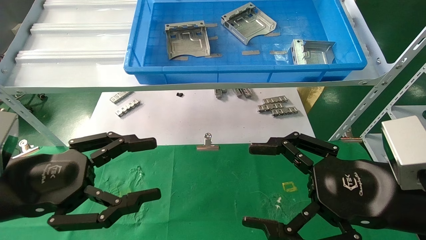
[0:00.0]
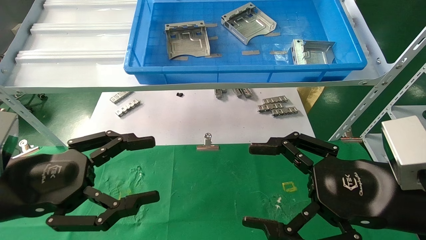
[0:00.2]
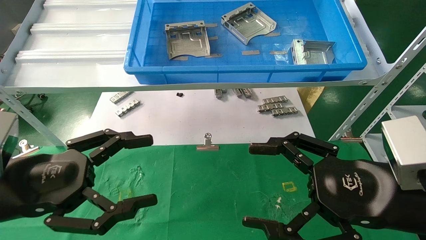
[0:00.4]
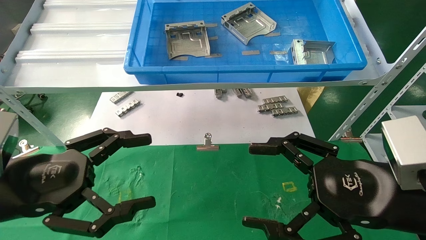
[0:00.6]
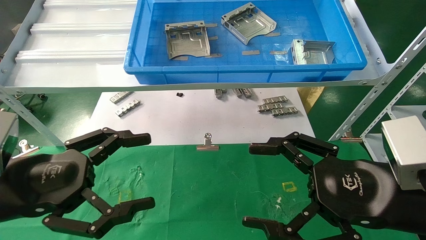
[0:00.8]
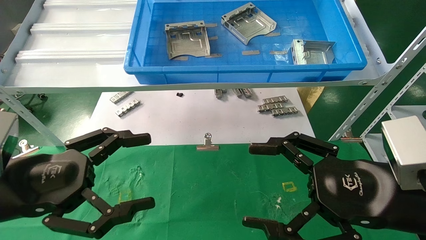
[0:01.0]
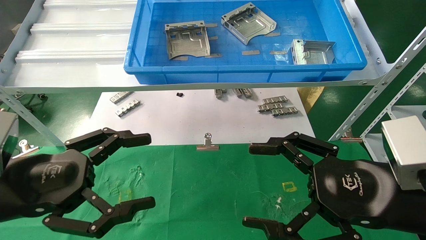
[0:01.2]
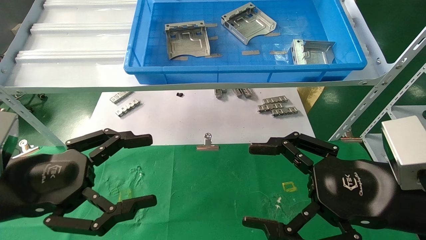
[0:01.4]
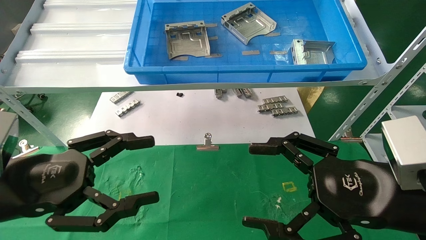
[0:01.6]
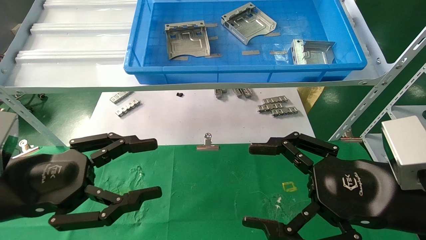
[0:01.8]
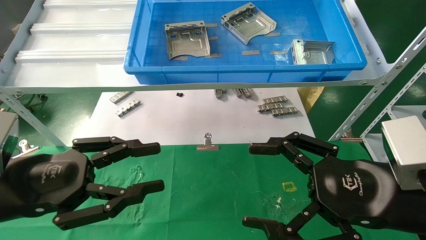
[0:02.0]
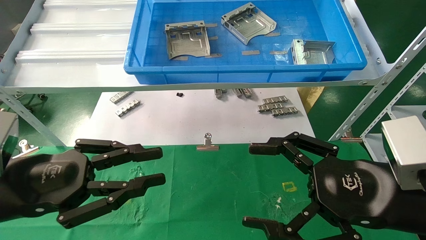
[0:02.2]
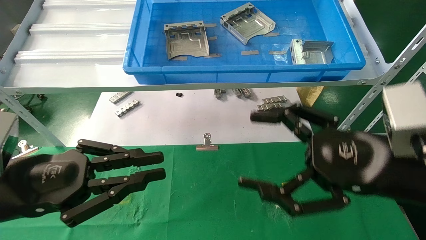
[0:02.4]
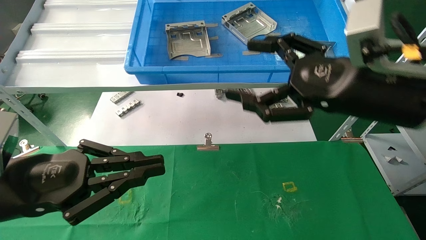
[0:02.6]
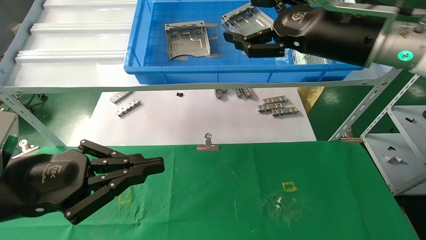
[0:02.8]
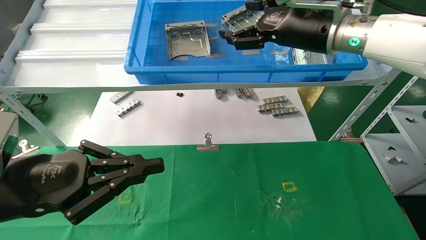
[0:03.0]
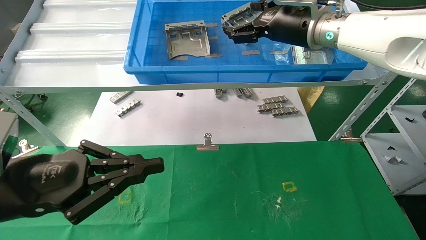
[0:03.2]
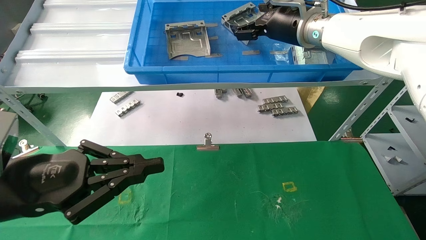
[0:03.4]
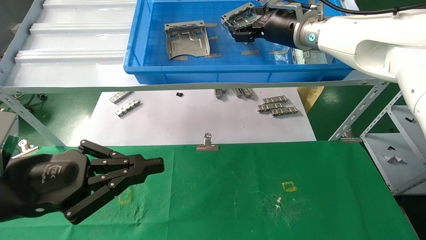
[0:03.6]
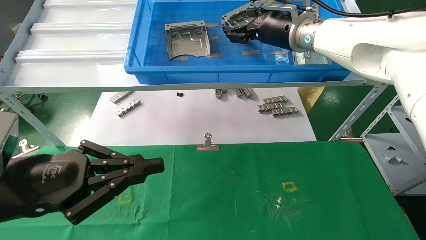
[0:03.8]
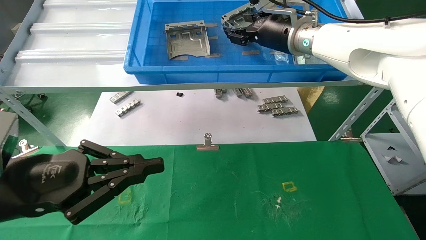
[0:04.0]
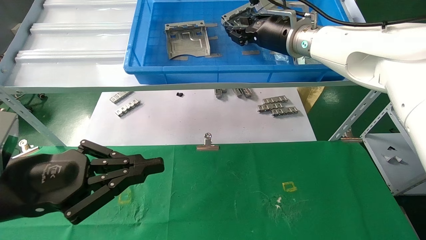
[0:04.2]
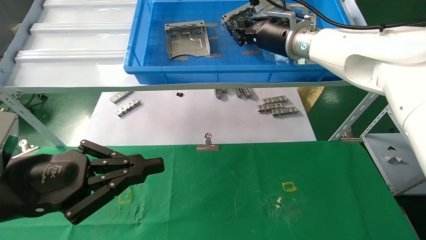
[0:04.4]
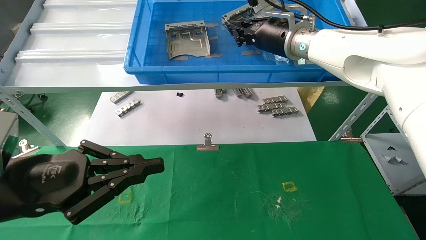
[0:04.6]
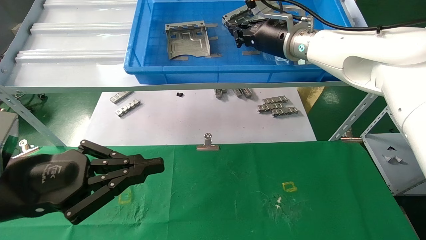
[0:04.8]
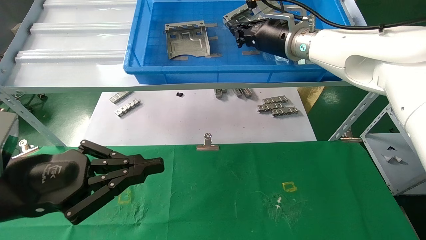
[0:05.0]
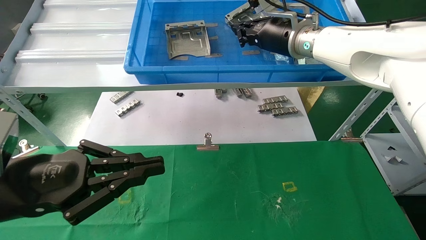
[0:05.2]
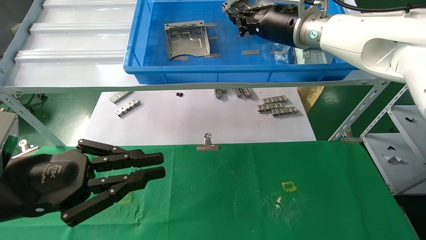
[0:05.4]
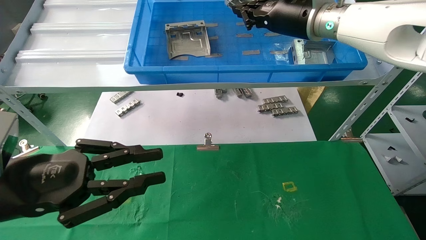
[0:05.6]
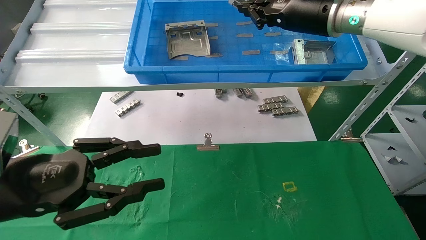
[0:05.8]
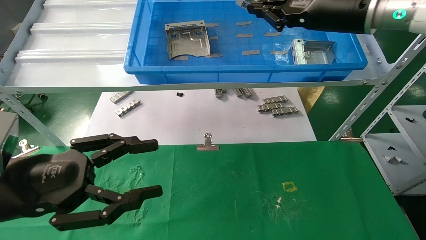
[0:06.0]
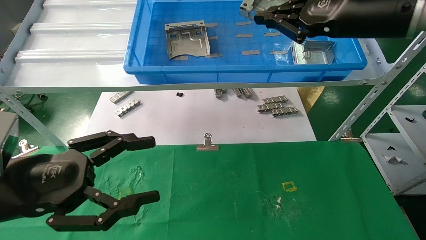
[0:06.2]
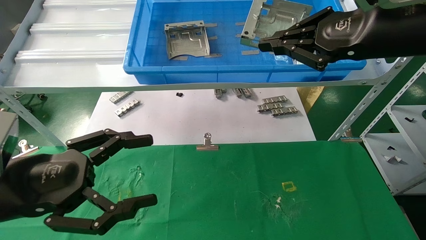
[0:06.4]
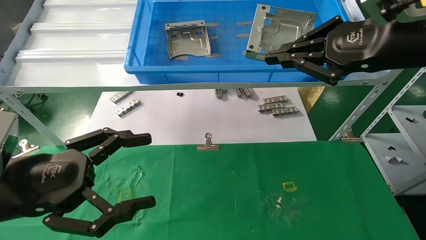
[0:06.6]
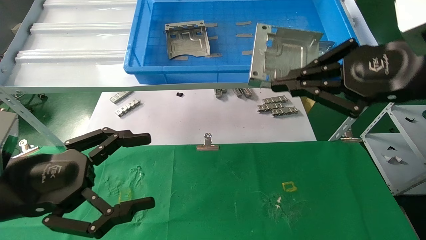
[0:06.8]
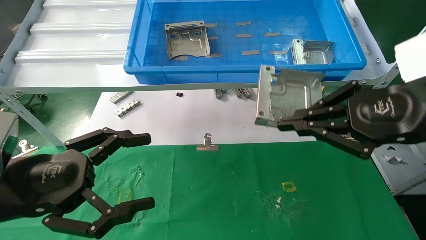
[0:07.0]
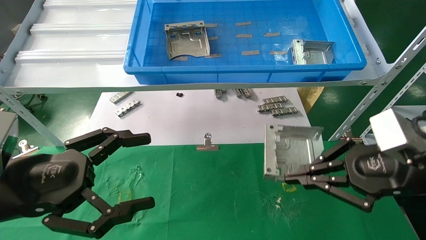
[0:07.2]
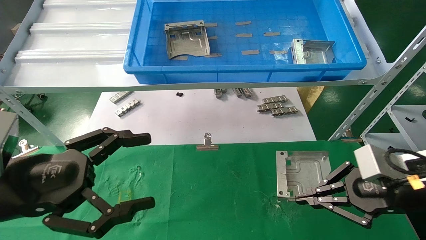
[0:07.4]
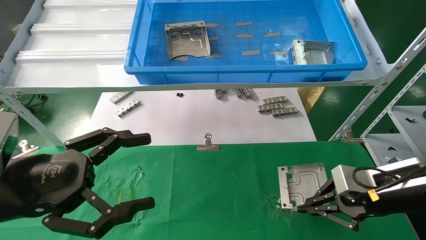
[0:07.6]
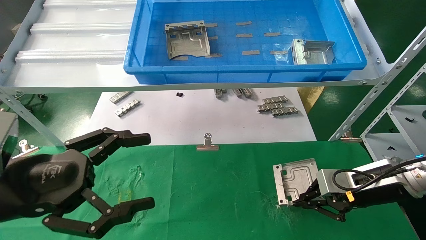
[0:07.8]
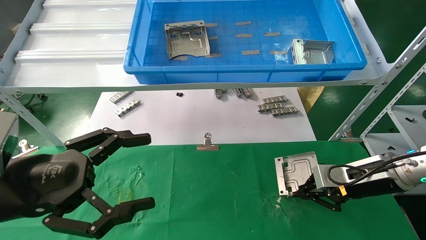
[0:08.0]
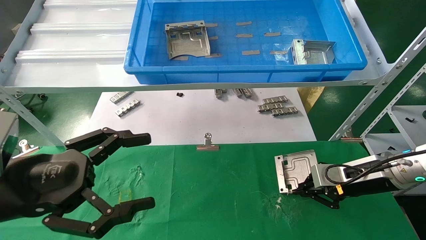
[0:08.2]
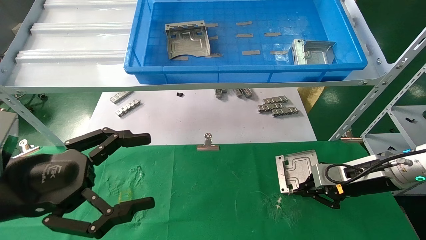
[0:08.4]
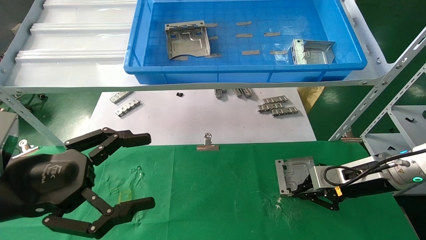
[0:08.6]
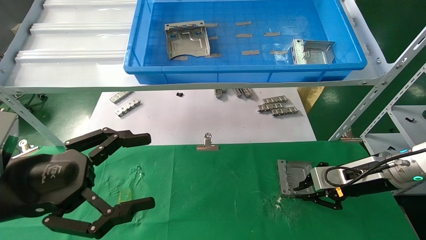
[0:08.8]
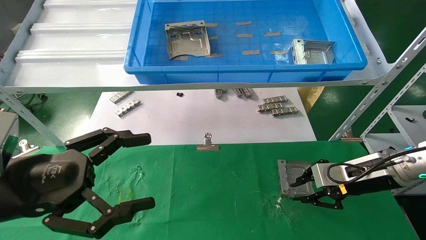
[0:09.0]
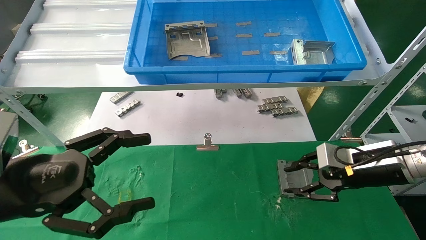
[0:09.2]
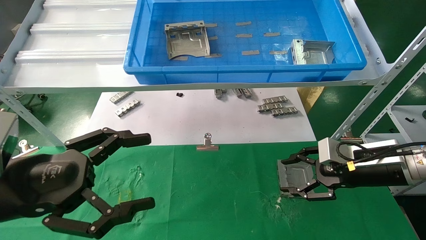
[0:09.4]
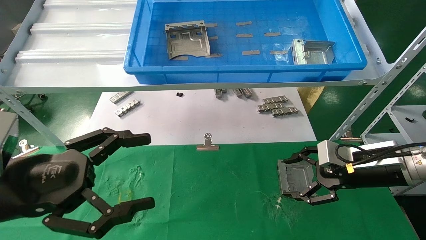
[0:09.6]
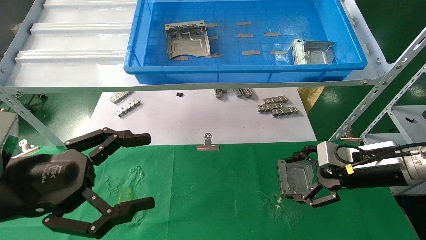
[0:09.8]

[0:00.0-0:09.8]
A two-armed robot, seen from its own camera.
Task of the whole recording: use the mechanical arm to pick up the parts and place them on the table.
Step, 0:02.6 to 0:04.6: Pick up the hard drive bracket from the feeding area.
Step, 0:04.8 to 0:09.0: Place the hard drive bracket into the box.
0:00.0 to 0:01.4: Both grippers stay put.
0:01.4 to 0:02.8: The right gripper heads upward and forward, covering roughly 20 cm, while the left gripper closes its fingers.
0:02.8 to 0:04.2: The right gripper travels forward and to the left by some 15 cm, and closes.
0:04.2 to 0:05.6: The right gripper changes place by some 5 cm, and closes up.
0:05.6 to 0:07.0: The left gripper opens up. The right gripper is displaced backward, to the right and downward by approximately 25 cm.
0:07.0 to 0:08.4: The right gripper travels downward and forward by some 20 cm.
0:08.4 to 0:09.8: The right gripper opens.

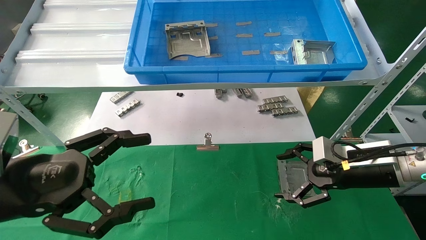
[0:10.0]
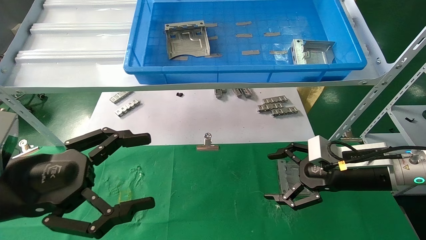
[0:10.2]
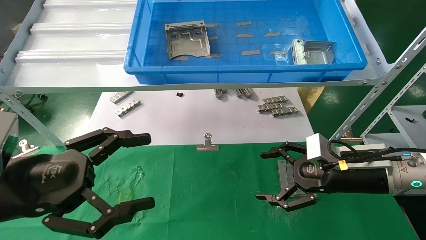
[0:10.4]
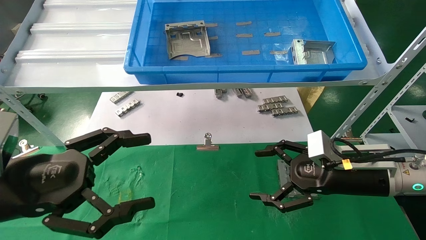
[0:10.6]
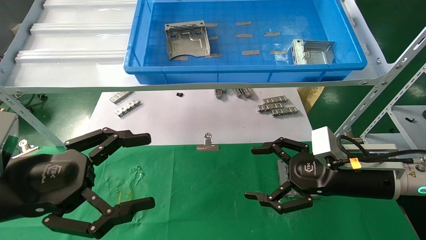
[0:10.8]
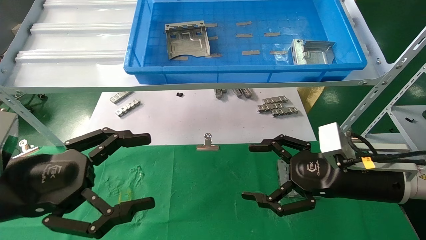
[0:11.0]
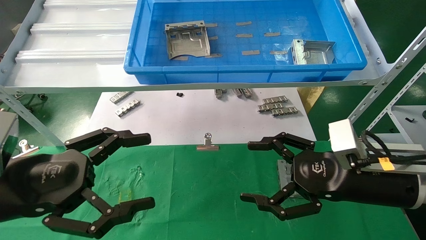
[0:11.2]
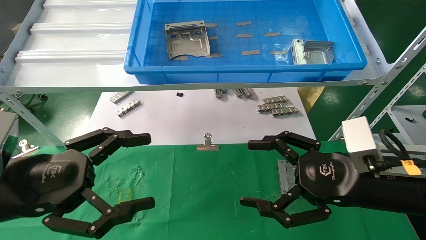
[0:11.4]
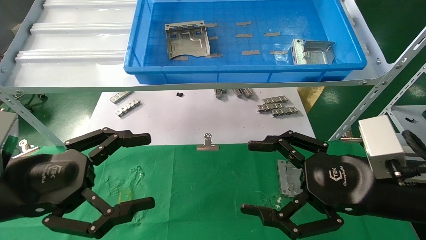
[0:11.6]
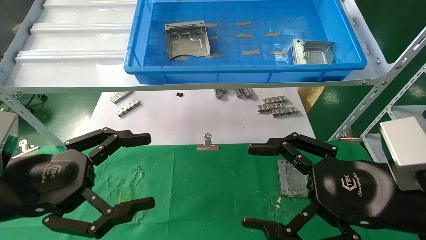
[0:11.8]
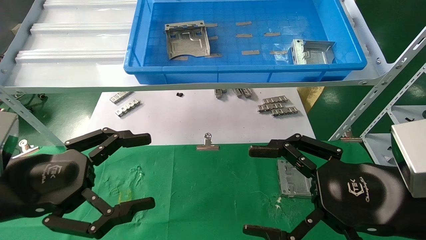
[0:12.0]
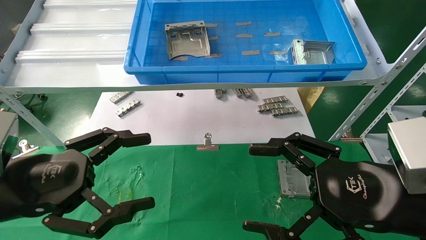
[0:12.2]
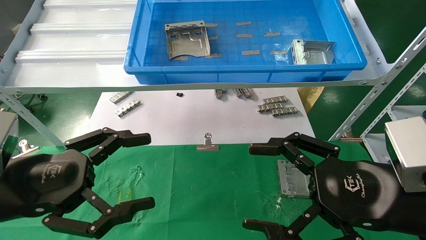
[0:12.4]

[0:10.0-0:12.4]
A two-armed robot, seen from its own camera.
Task of the whole recording: use the mechanical arm to pick up the parts and place them on the table.
0:10.0 to 0:11.2: The right gripper moves backward and to the left, about 10 cm.
0:11.2 to 0:12.4: The right gripper travels backward by about 10 cm.
